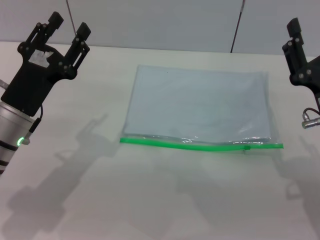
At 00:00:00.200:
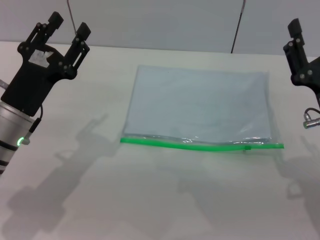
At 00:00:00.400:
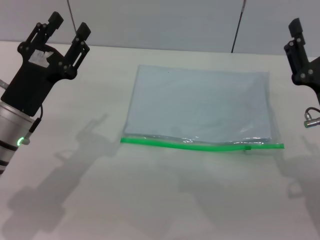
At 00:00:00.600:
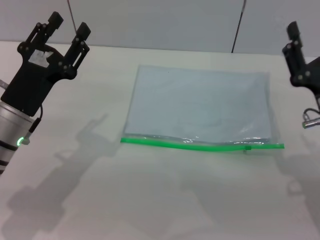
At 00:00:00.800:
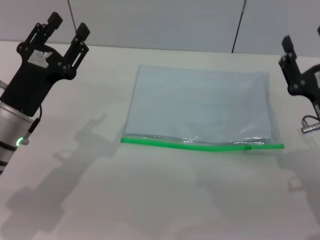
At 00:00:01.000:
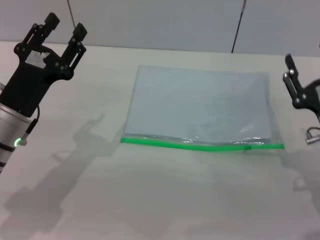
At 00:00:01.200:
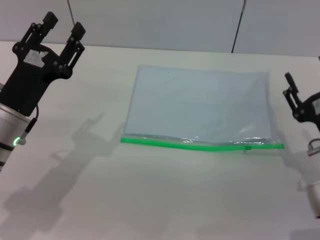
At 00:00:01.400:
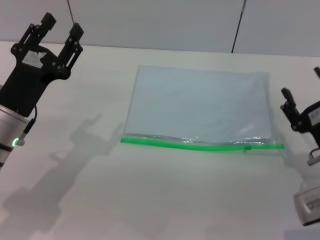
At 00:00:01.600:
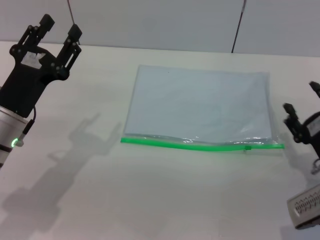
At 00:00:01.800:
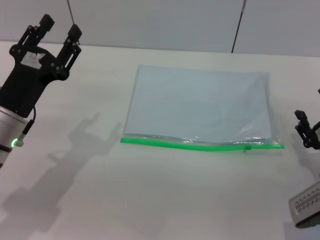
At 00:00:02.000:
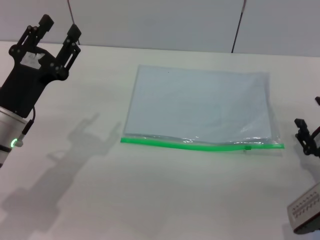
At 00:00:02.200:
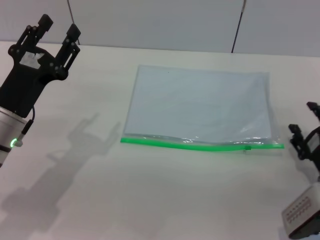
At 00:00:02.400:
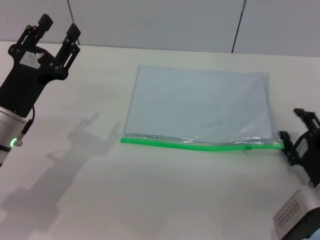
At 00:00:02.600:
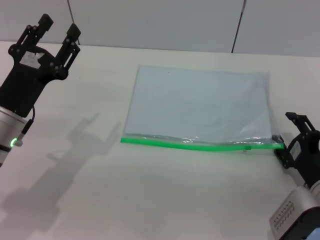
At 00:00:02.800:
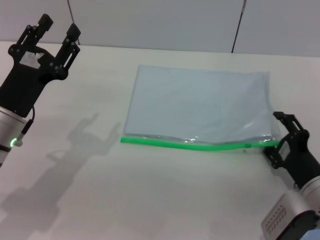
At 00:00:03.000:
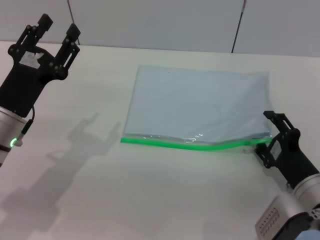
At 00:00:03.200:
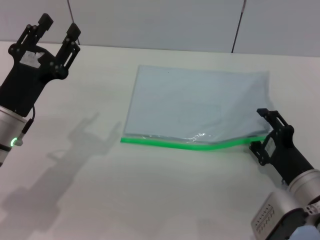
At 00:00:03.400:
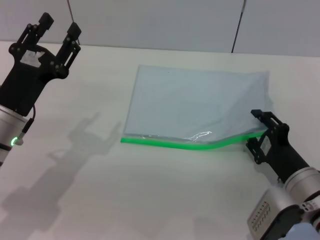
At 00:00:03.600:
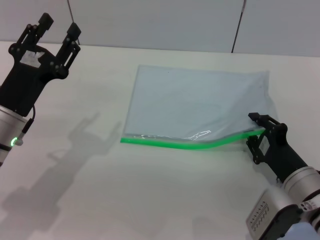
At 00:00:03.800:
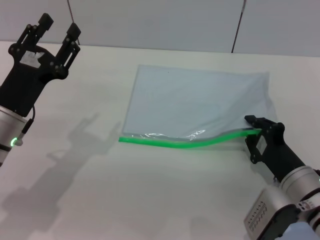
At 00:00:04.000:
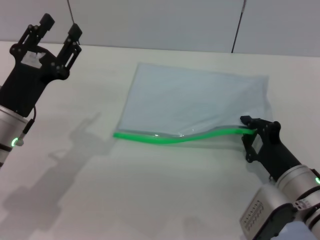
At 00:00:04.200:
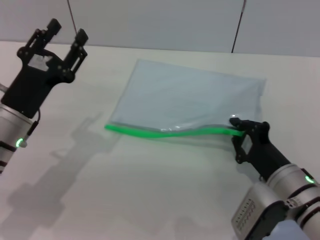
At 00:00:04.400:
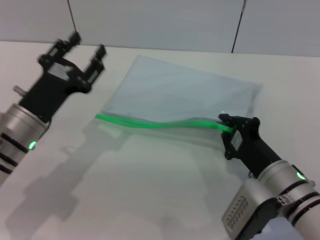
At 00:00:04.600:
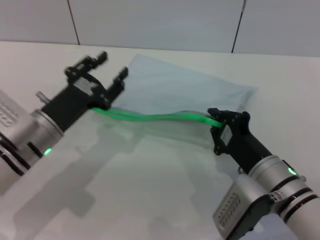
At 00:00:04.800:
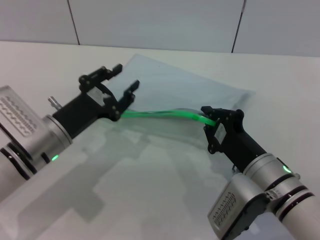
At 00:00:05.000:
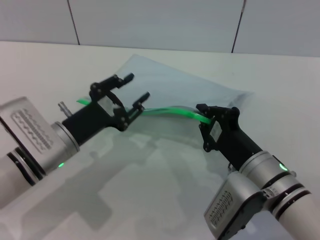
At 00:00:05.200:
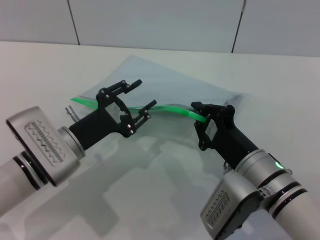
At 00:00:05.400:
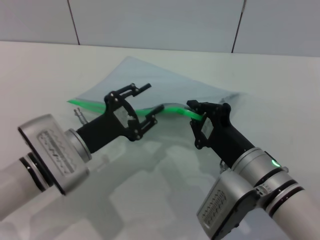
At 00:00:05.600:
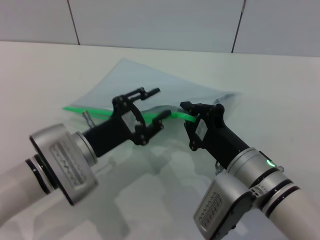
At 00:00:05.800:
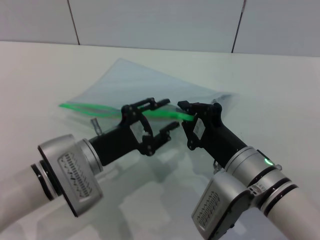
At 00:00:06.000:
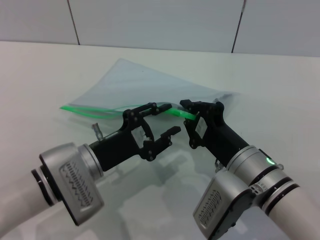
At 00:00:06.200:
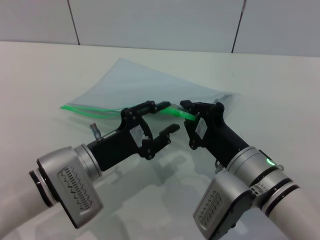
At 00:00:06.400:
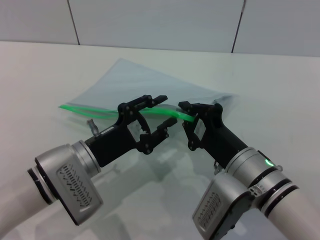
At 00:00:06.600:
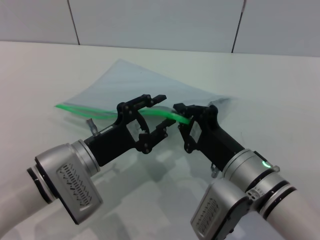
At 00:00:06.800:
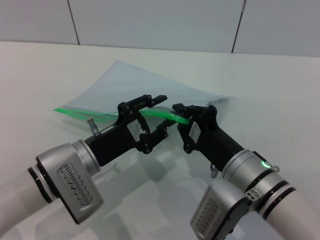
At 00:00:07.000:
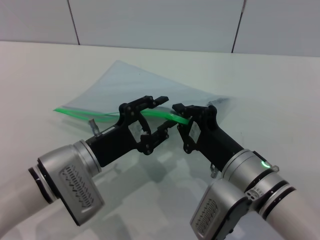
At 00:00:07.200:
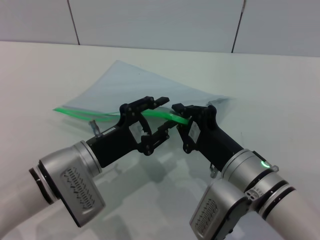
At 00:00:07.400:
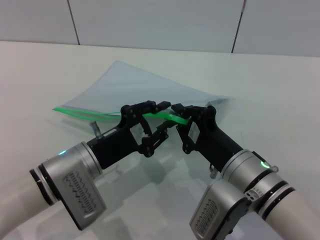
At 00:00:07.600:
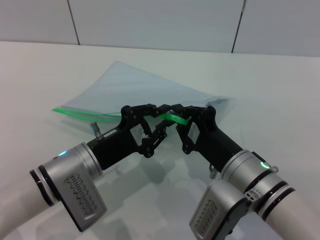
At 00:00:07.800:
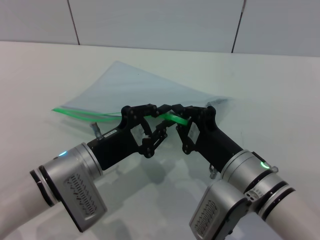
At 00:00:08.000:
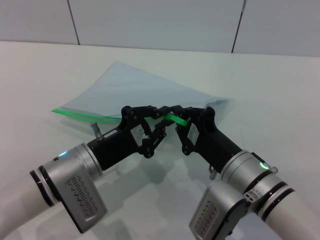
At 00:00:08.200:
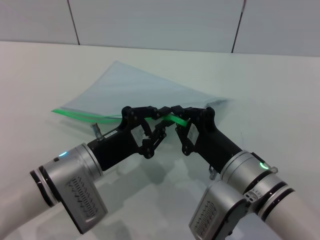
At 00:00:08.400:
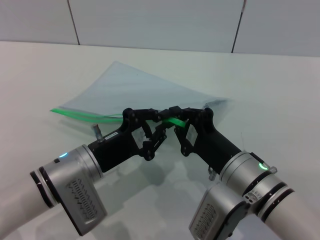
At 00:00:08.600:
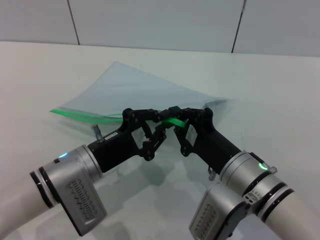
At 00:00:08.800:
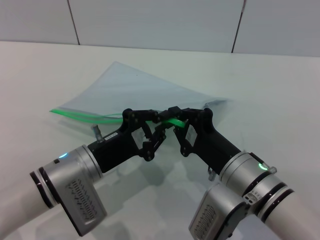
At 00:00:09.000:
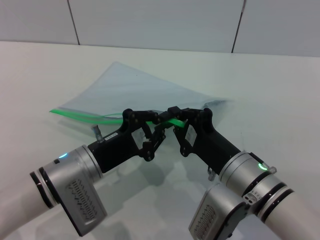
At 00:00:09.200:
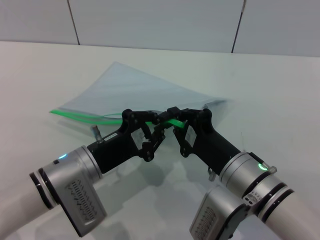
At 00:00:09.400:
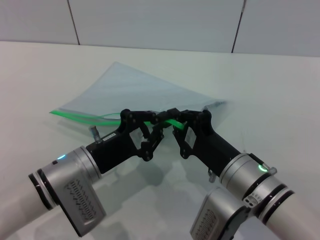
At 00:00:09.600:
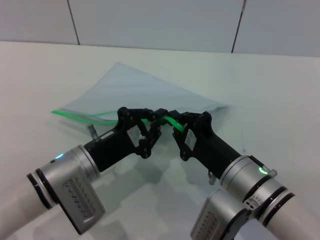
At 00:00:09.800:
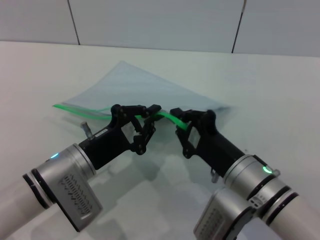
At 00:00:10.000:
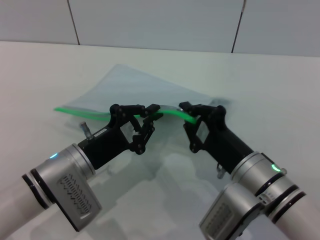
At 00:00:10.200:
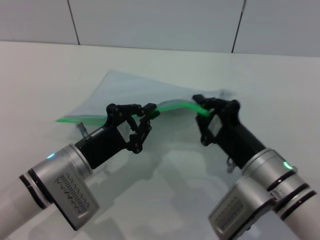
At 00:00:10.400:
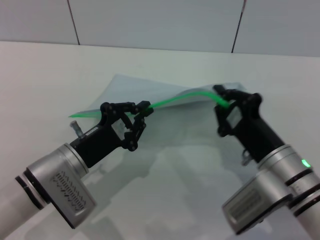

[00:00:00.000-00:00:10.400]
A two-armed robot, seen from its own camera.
Step, 00:00:00.000 to 00:00:05.000: Pick up the transparent plastic bag with the right gripper.
00:00:00.000 to 00:00:01.400: The right gripper moves downward, roughly 5 cm.
00:00:03.000 to 00:00:04.400: The right gripper is displaced to the left by roughly 5 cm, and closes its fingers.
00:00:04.400 to 00:00:06.000: The left gripper heads to the right, covering approximately 5 cm, while the right gripper changes place by approximately 5 cm.
00:00:06.000 to 00:00:07.400: There are only small adjustments of the grippers.
00:00:07.400 to 00:00:09.000: The left gripper closes its fingers.

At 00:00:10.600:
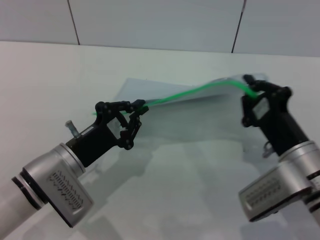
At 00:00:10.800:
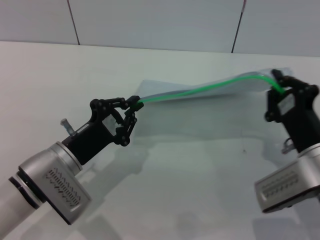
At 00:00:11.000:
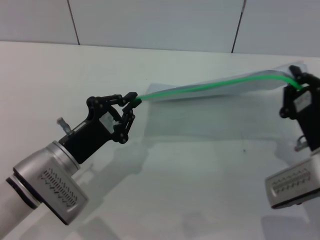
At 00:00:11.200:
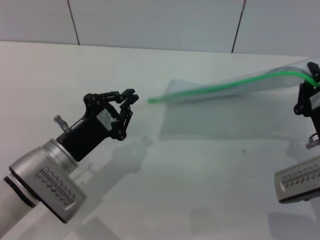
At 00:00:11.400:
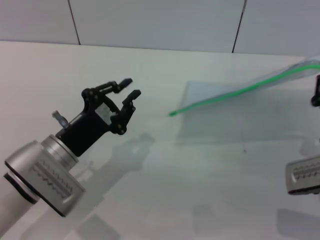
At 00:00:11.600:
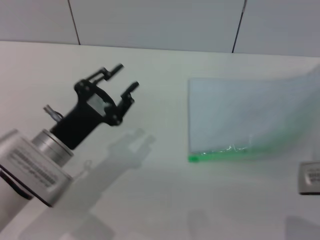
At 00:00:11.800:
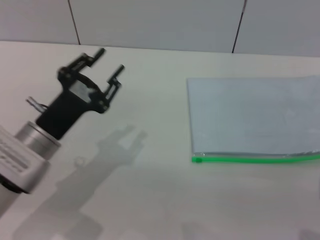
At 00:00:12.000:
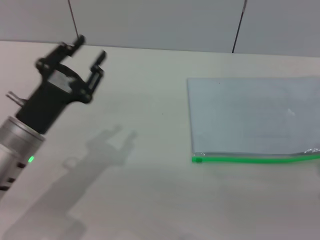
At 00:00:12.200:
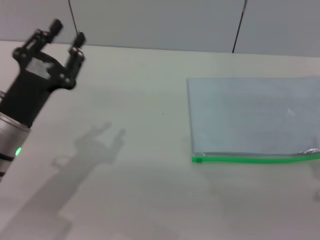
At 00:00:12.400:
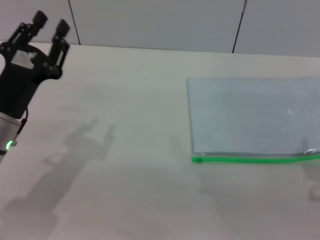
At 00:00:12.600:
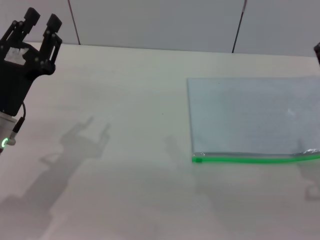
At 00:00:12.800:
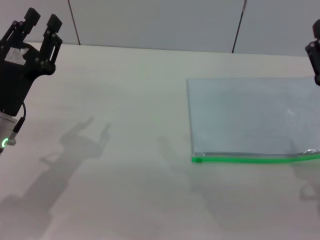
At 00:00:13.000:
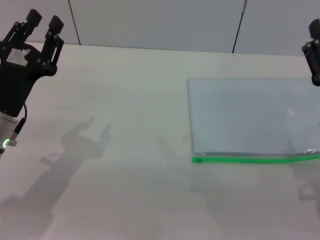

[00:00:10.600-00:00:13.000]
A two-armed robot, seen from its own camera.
Step, 00:00:11.200 to 00:00:12.000: Place the transparent plastic bag.
00:00:10.600 to 00:00:11.800: The left gripper opens its fingers; the right gripper shifts approximately 5 cm to the right, and opens its fingers.
00:00:11.800 to 00:00:13.000: The right gripper opens up.
